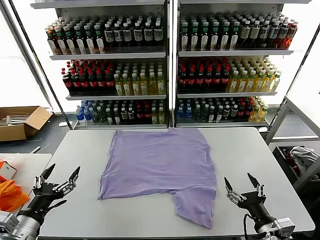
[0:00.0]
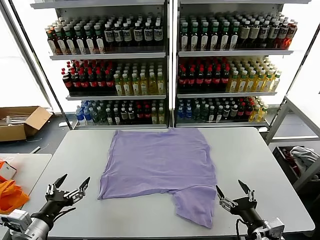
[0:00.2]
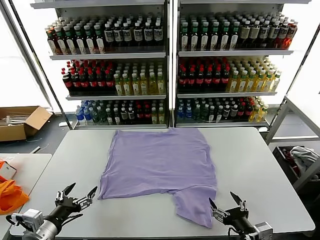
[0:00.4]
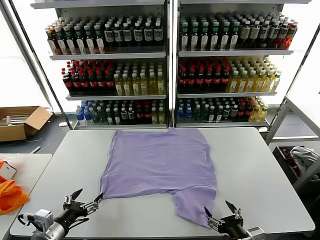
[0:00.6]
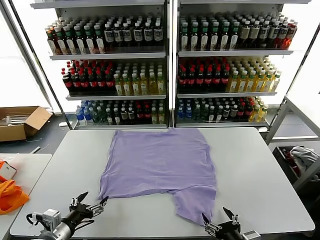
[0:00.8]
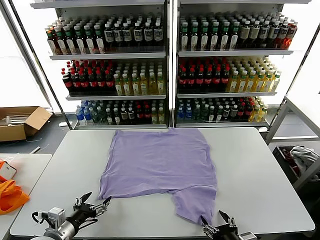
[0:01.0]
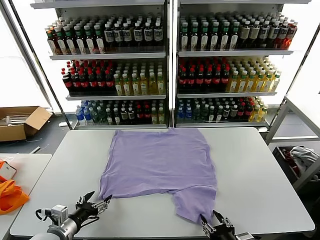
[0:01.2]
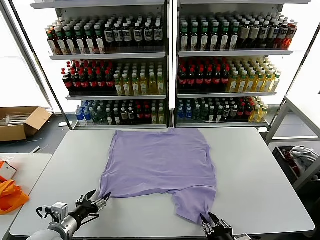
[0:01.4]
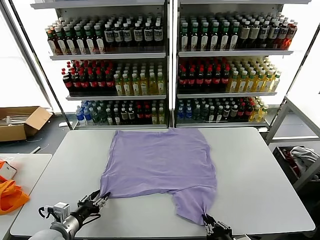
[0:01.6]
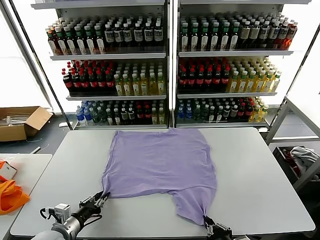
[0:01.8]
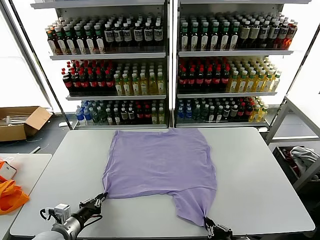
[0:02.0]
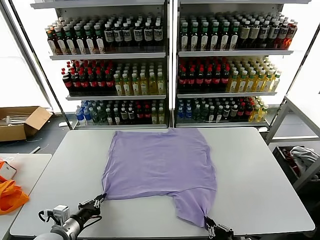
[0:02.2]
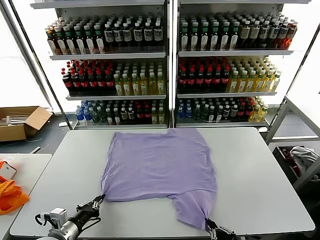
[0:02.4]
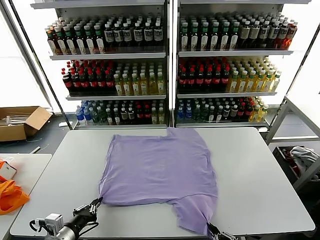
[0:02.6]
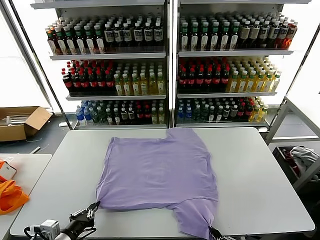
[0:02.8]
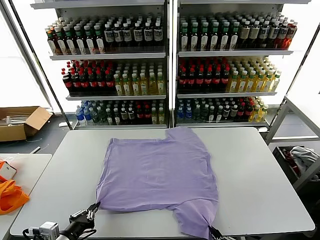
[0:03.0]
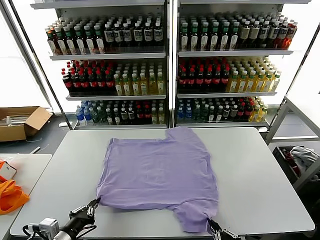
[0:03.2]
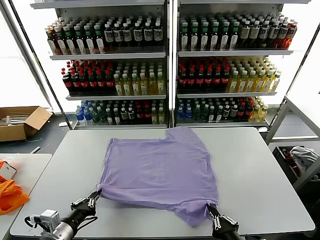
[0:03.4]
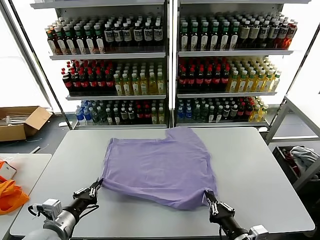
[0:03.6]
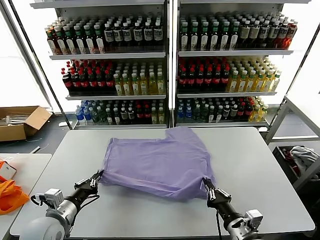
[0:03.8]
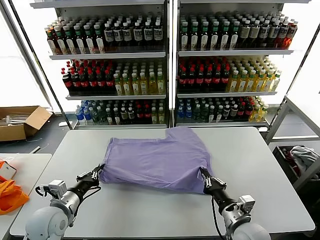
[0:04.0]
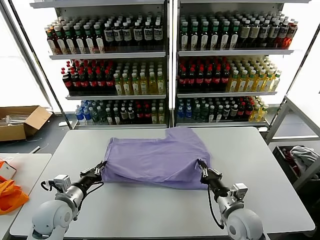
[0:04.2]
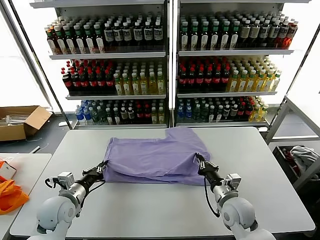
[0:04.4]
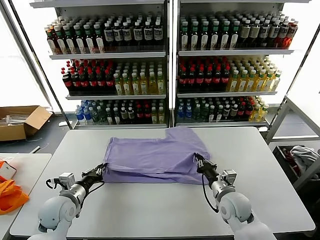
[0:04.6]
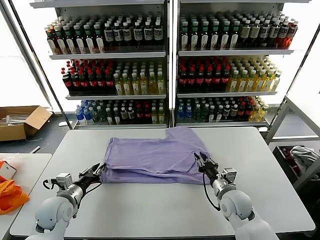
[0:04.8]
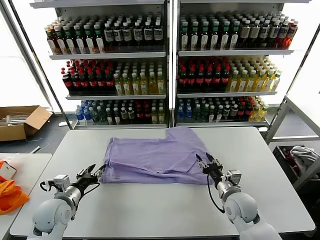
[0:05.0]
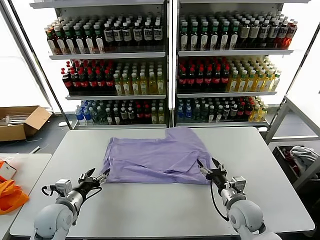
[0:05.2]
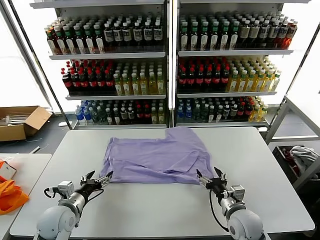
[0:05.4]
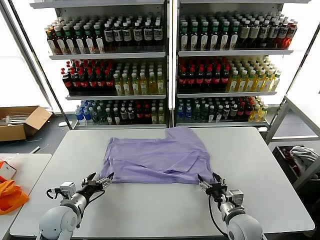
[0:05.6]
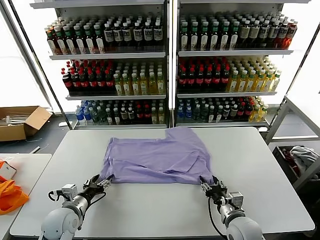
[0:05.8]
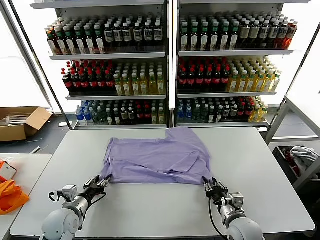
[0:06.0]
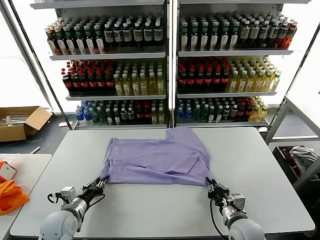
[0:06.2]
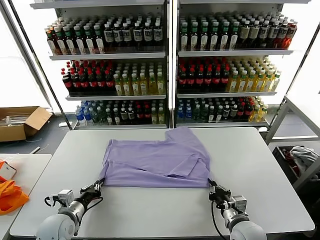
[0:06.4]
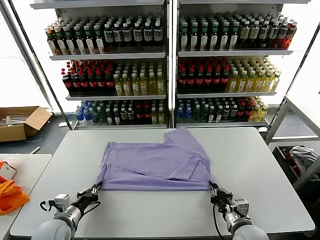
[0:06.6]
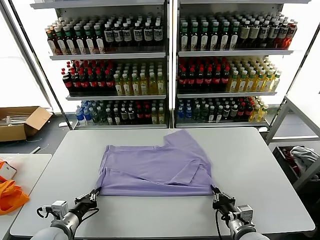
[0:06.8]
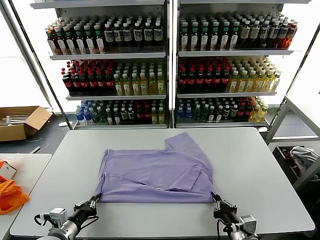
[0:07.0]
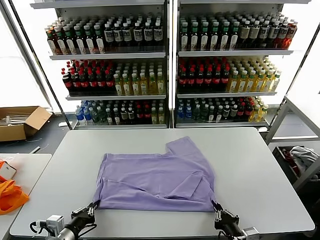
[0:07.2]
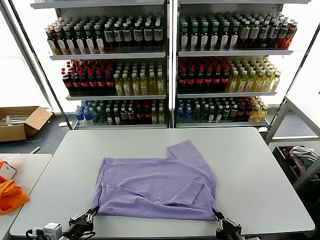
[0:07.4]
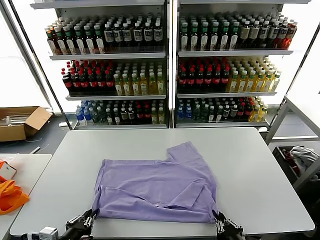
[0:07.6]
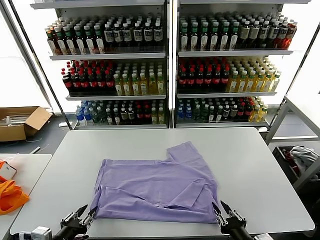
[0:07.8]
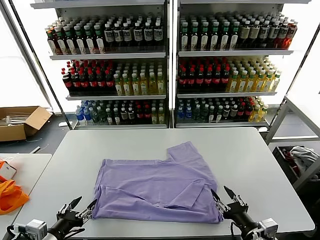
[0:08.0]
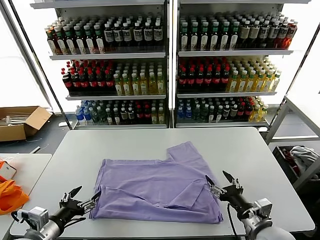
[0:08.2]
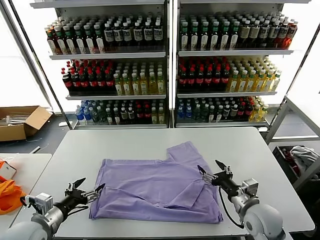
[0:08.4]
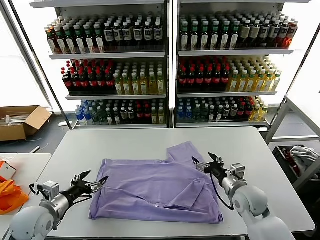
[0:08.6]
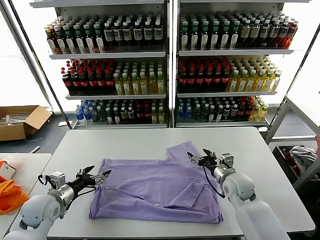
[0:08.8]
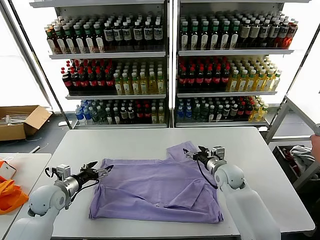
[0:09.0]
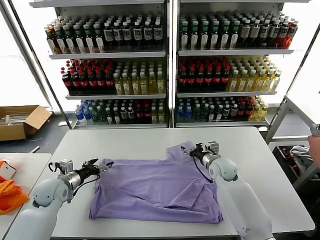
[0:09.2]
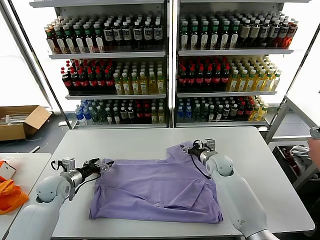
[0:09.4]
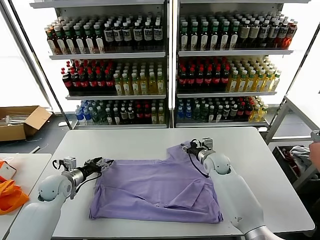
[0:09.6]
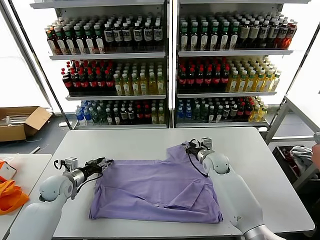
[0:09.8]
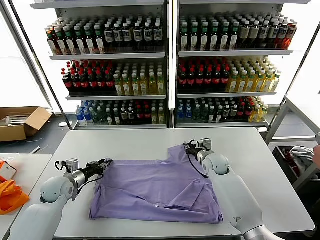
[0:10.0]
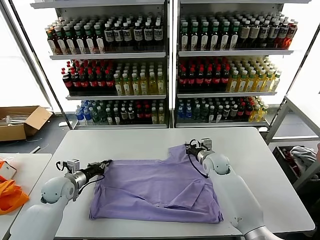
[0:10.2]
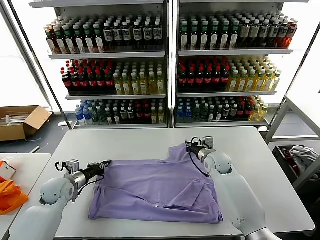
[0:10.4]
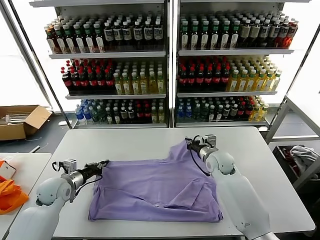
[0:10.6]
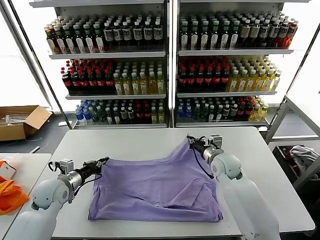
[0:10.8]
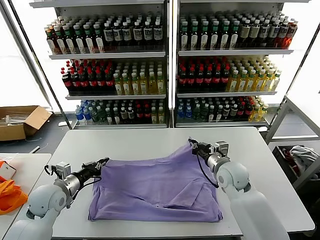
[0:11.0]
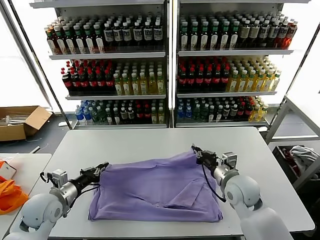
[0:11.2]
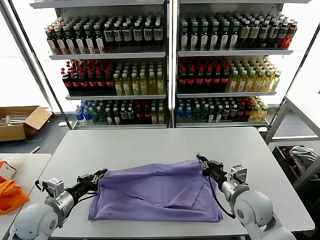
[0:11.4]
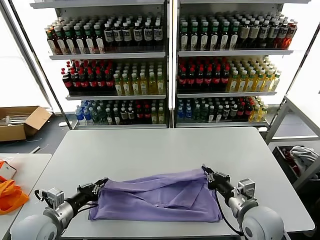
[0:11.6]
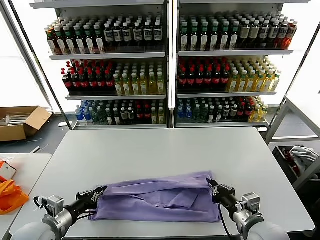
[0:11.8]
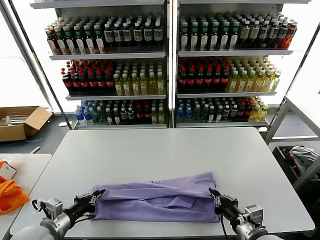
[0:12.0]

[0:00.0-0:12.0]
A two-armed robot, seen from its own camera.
Task of the whole recording: fold and organize the clothes.
Step, 0:00.0 to 0:02.4: use both grippers simultaneously to clamp the lower edge of the clothing fabric.
Step, 0:02.6 to 0:05.2: use both grippers to drag the lower edge of the fabric forward and fold it over the upper edge.
Step, 0:05.4 to 0:07.8: Drag the clothes downward with both gripper.
Step, 0:08.0 to 0:10.4: use both grippers simultaneously to clamp the upper edge of the clothing fabric.
0:01.6 to 0:03.0: The left gripper shifts roughly 5 cm backward, and closes its fingers; the right gripper changes place by roughly 5 cm.
0:03.0 to 0:04.4: The right gripper shifts roughly 25 cm forward, while the left gripper moves forward, some 15 cm.
0:04.4 to 0:06.0: The left gripper moves approximately 5 cm, and opens up; the right gripper moves backward, roughly 10 cm, and opens and closes again.
0:06.0 to 0:07.6: The grippers both shift backward by roughly 15 cm.
0:07.6 to 0:09.0: The left gripper travels forward by some 20 cm, and opens up. Meanwhile the right gripper moves forward, about 35 cm, and opens.
0:09.0 to 0:10.4: The left gripper closes. The right gripper closes.
0:10.4 to 0:12.0: The left gripper is displaced backward by approximately 15 cm, while the right gripper travels backward by roughly 30 cm.

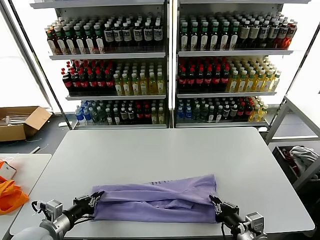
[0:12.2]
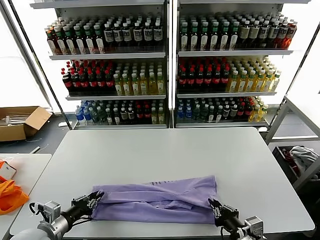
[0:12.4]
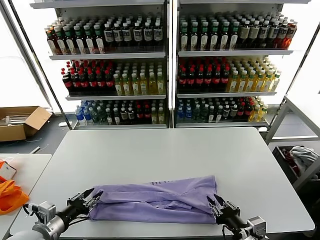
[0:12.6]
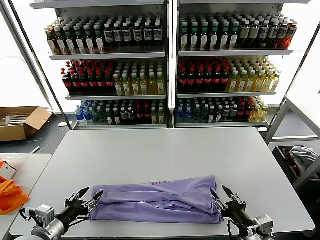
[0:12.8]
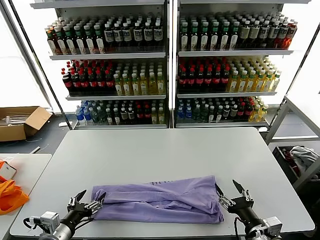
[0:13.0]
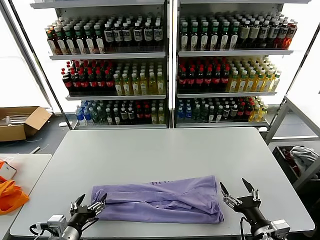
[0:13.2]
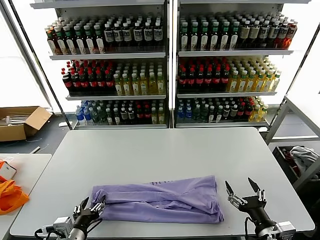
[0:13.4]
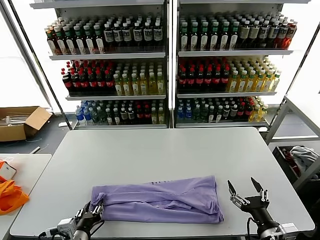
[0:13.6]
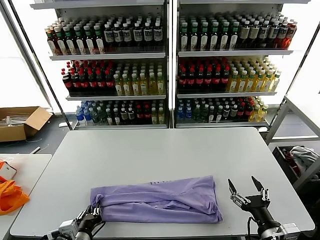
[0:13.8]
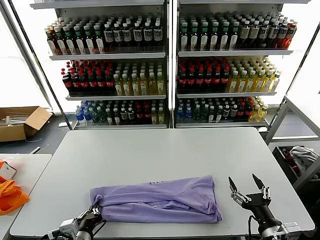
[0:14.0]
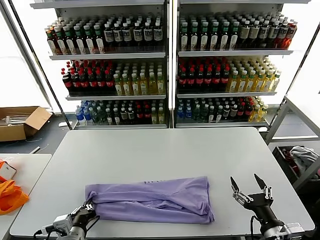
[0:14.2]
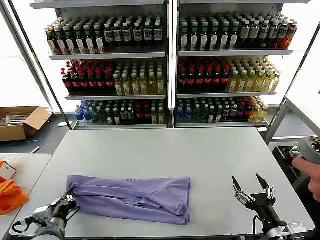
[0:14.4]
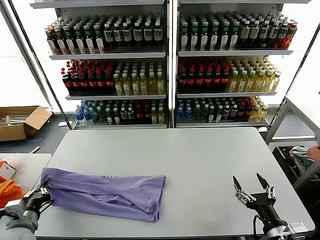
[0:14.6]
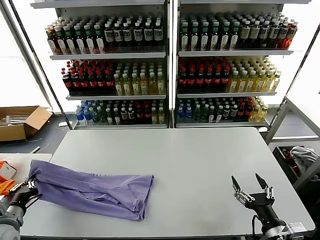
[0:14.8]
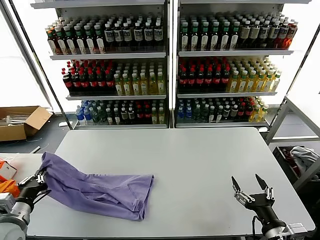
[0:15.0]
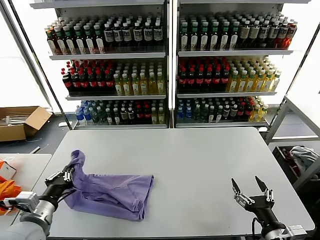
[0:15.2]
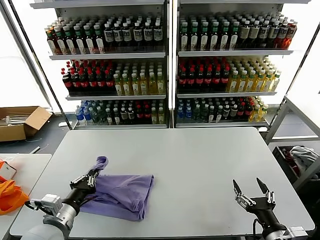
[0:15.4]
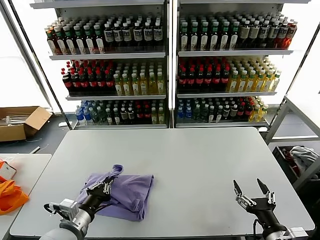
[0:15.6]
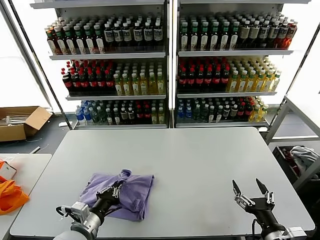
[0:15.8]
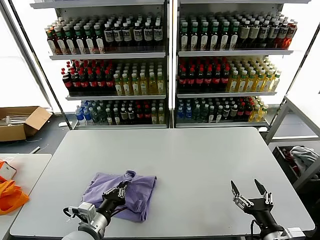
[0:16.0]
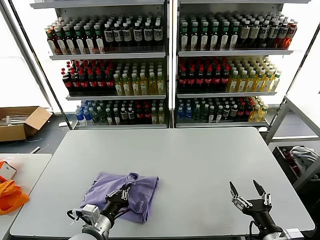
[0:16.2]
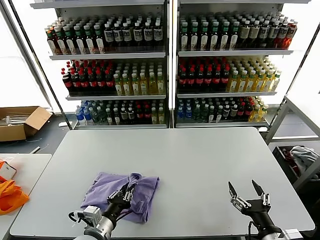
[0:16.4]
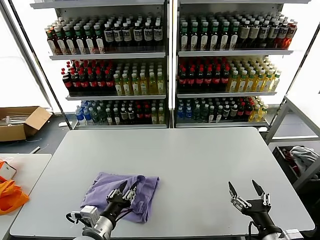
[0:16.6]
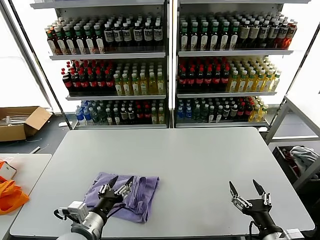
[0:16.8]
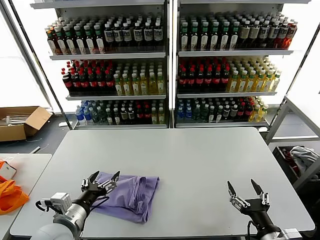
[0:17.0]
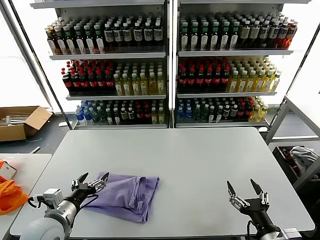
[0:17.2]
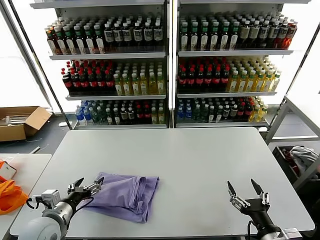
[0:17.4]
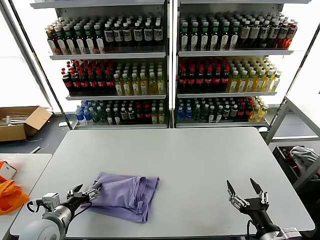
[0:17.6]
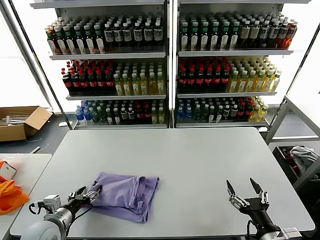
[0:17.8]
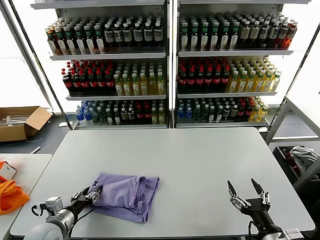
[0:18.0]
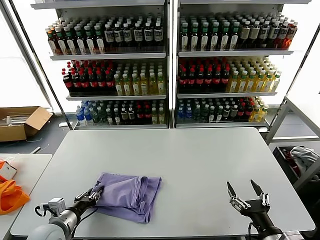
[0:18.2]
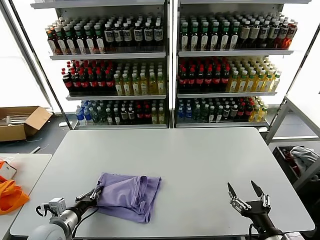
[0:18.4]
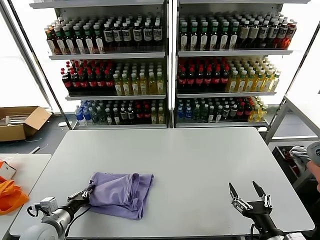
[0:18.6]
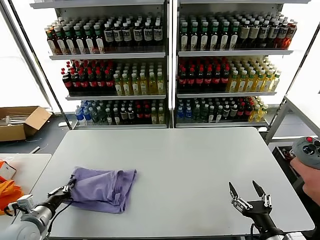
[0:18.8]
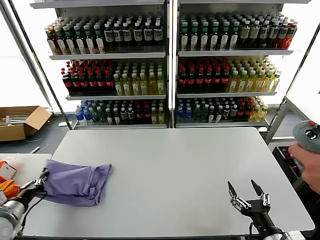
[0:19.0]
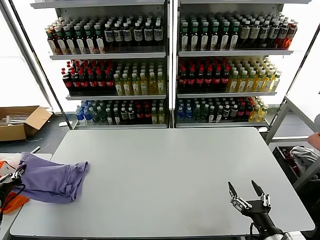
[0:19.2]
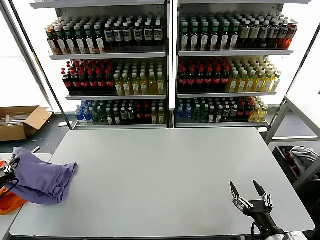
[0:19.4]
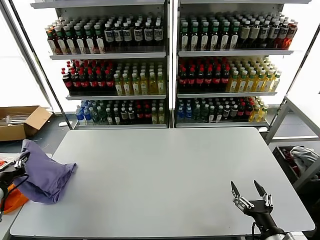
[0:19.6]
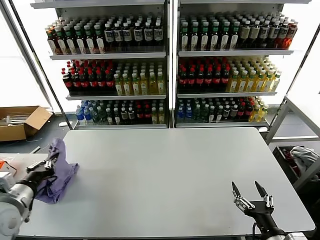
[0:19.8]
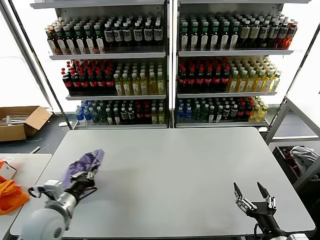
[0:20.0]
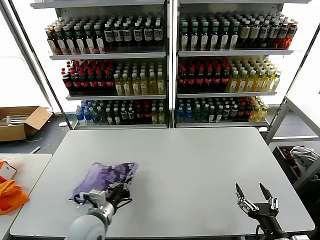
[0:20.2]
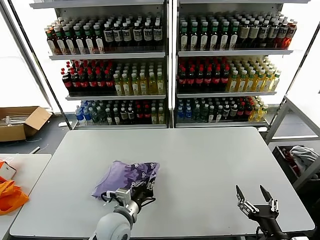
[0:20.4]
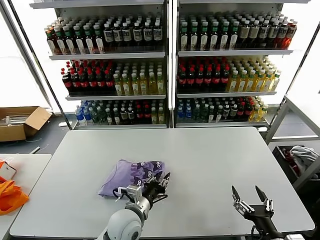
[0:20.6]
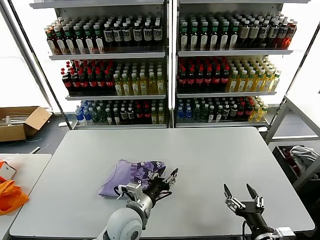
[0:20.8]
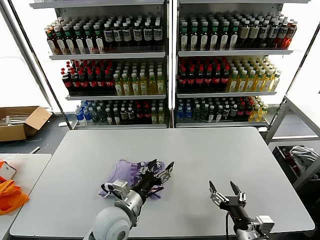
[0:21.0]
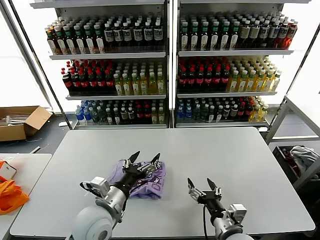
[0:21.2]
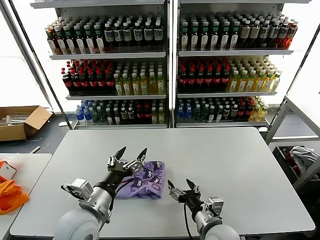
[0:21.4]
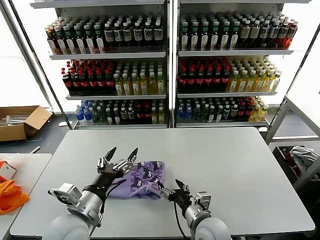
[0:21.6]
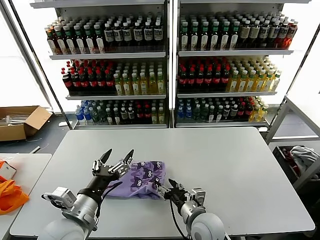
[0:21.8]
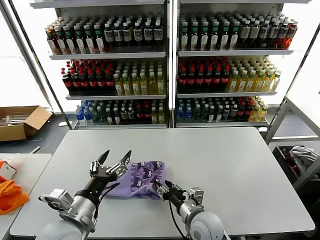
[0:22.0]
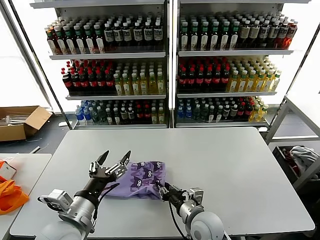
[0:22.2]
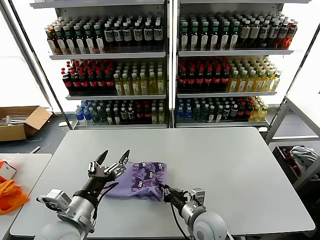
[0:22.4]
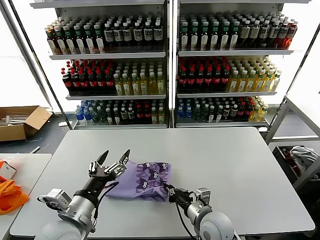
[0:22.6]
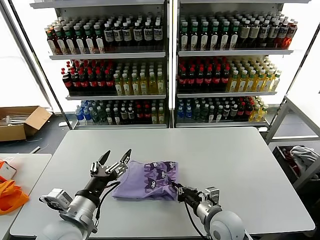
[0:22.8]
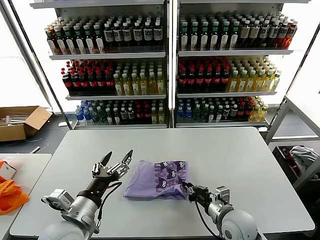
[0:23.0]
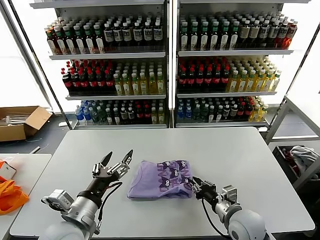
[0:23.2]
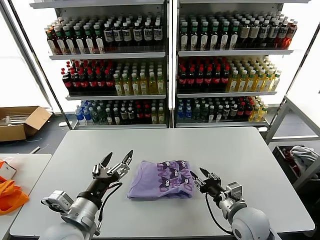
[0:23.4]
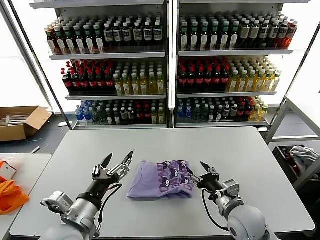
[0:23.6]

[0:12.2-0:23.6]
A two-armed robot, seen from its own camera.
Task of the whole recording: fold and organize the clothes.
Step, 0:12.8 to 0:13.8: use the left gripper to clamp the left edge of the fabric.
Step, 0:14.2 to 0:16.6: use the left gripper to drag the left edge of the fabric to the left and folds it over the right edge.
Step, 0:16.8 to 0:20.6: Flip the folded clothes over with left gripper.
0:12.2 to 0:13.6: The right gripper moves approximately 5 cm, and opens up, while the left gripper is displaced to the right by about 10 cm, and opens up.
0:13.6 to 0:15.0: The left gripper is displaced to the left and upward by about 15 cm, and closes its fingers.
0:15.0 to 0:16.4: The left gripper is displaced to the right by about 20 cm.
0:16.4 to 0:17.8: The left gripper goes some 15 cm to the left, and opens.
0:17.8 to 0:19.4: The left gripper moves to the left and upward, roughly 20 cm, and closes its fingers.
0:19.4 to 0:20.8: The left gripper moves to the right, about 40 cm, and opens.
0:20.8 to 0:22.2: The right gripper moves to the left and forward, roughly 20 cm, and closes up, while the left gripper goes approximately 15 cm to the left, upward and backward, and opens up.
0:22.2 to 0:23.6: The right gripper heads to the right, covering about 10 cm, and closes, then opens again.
